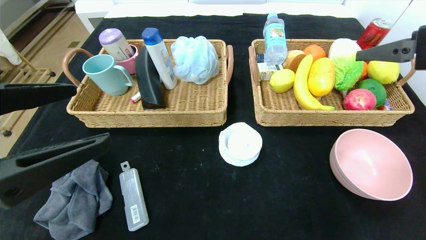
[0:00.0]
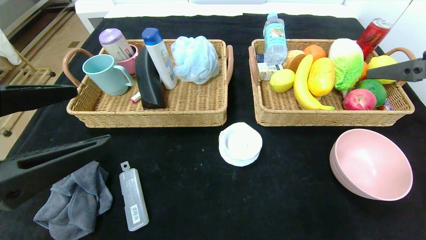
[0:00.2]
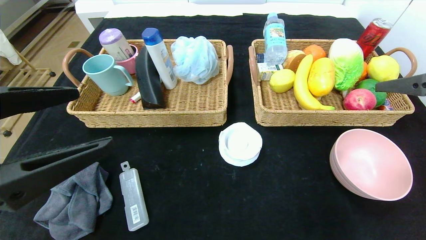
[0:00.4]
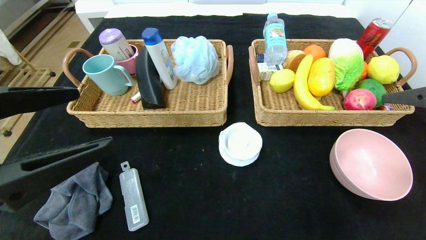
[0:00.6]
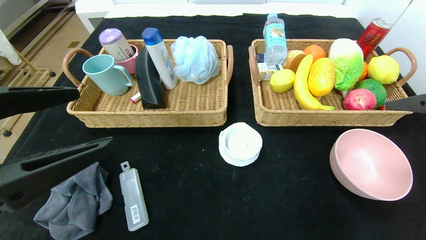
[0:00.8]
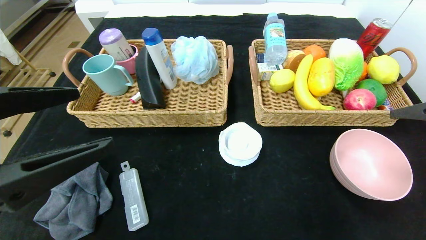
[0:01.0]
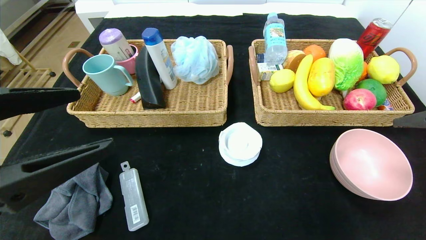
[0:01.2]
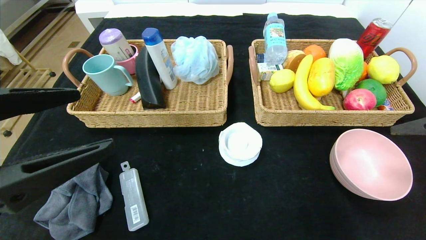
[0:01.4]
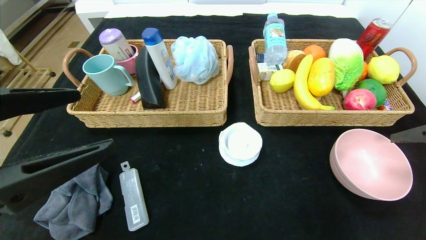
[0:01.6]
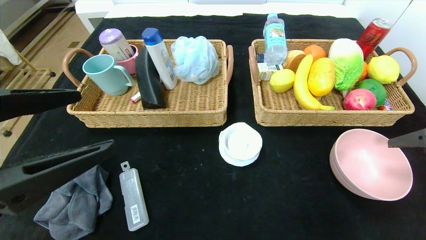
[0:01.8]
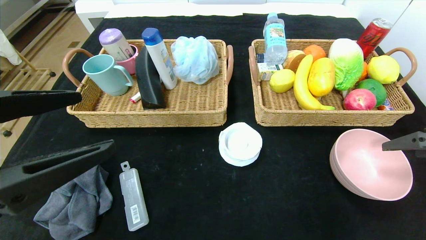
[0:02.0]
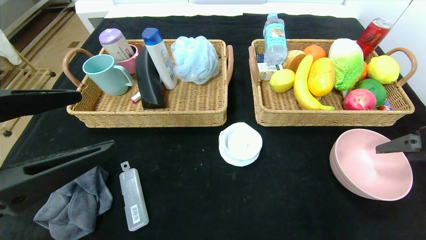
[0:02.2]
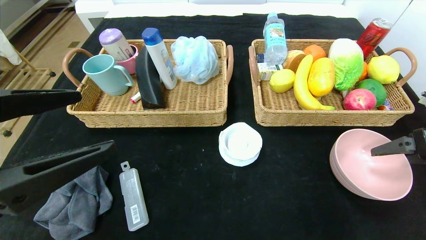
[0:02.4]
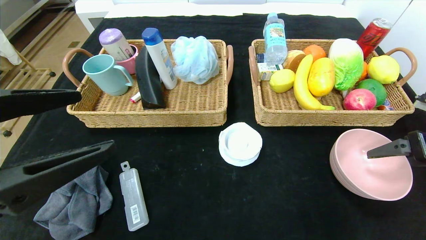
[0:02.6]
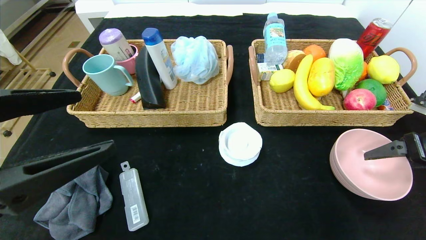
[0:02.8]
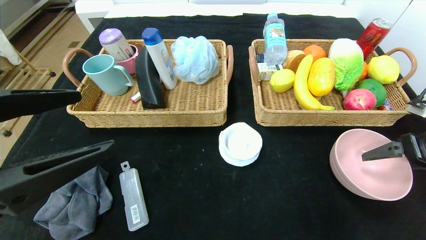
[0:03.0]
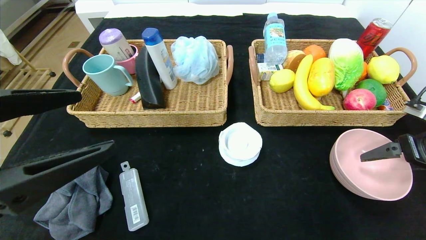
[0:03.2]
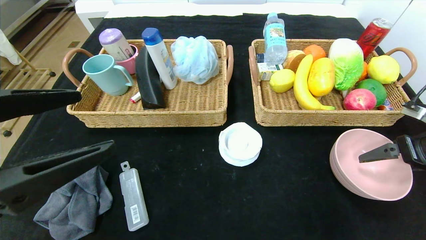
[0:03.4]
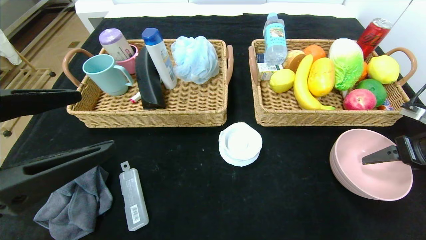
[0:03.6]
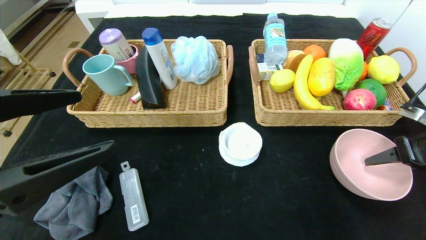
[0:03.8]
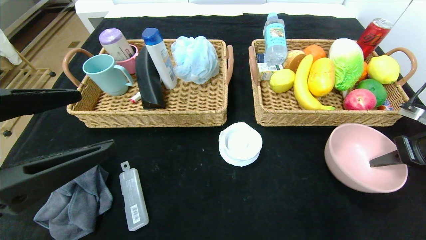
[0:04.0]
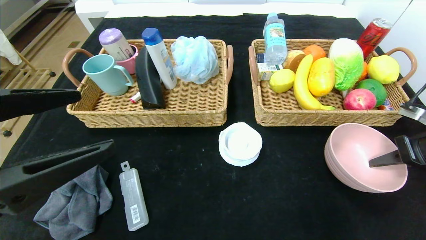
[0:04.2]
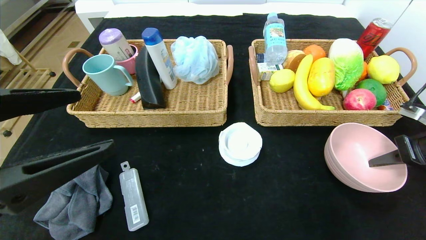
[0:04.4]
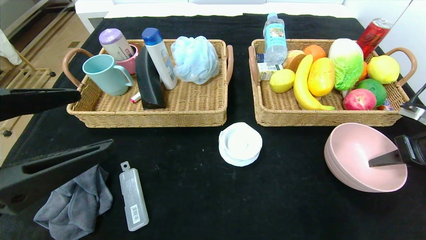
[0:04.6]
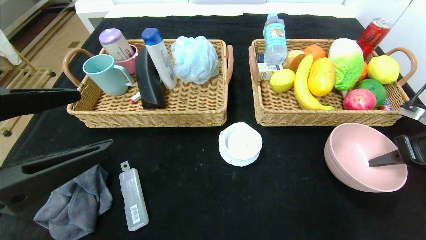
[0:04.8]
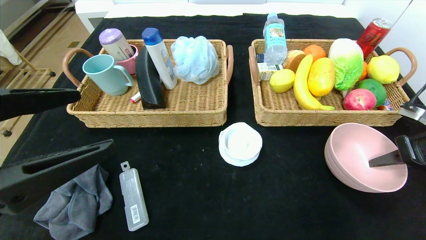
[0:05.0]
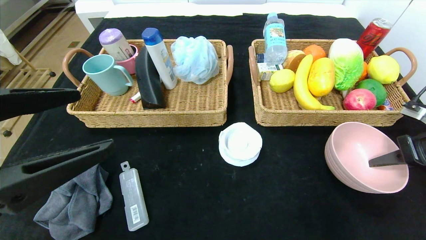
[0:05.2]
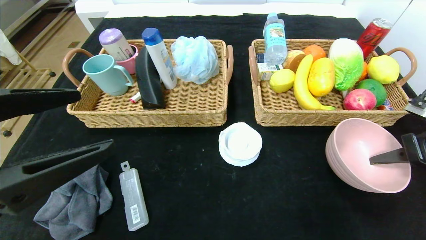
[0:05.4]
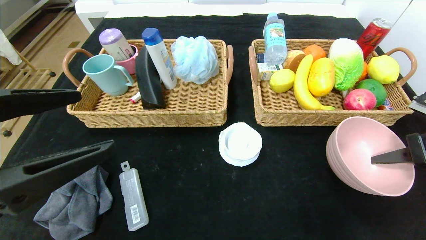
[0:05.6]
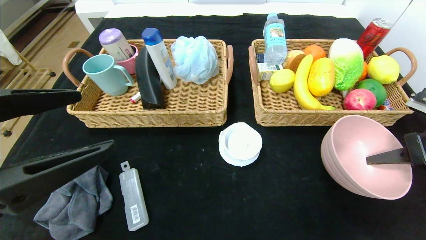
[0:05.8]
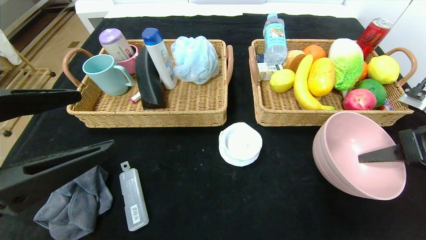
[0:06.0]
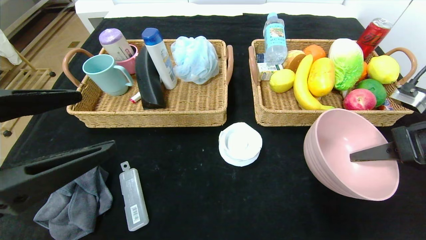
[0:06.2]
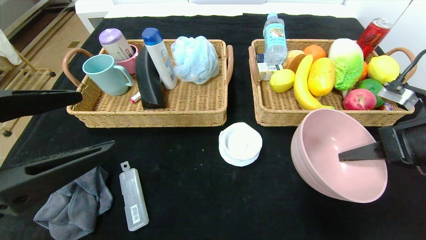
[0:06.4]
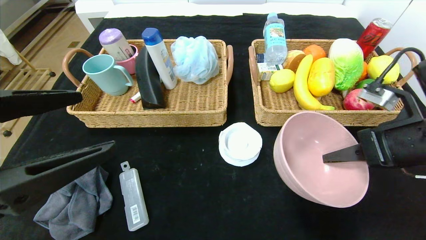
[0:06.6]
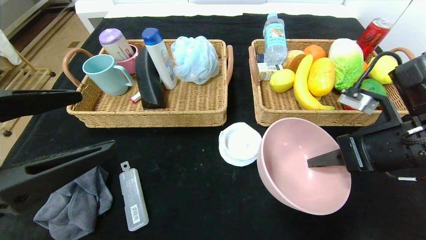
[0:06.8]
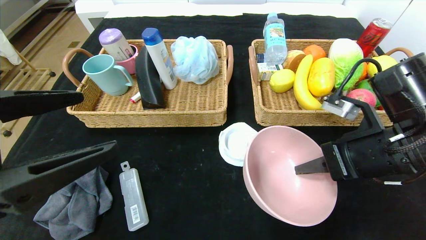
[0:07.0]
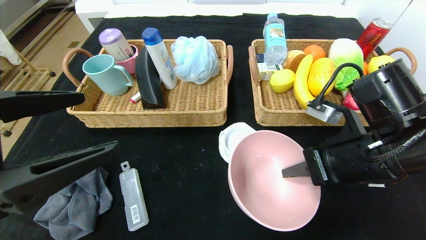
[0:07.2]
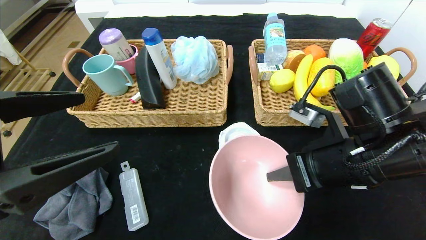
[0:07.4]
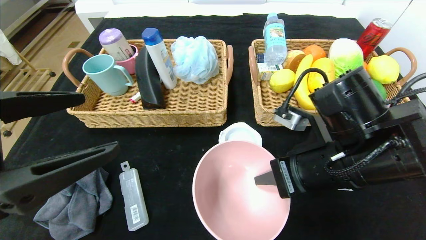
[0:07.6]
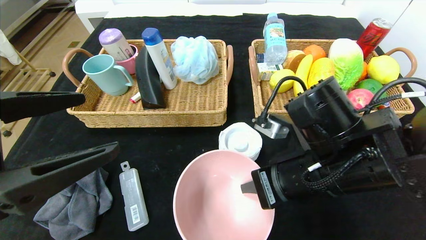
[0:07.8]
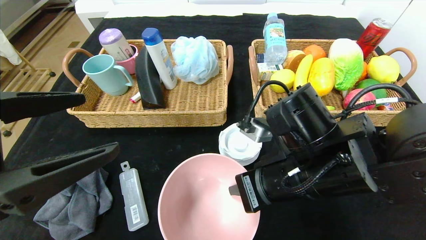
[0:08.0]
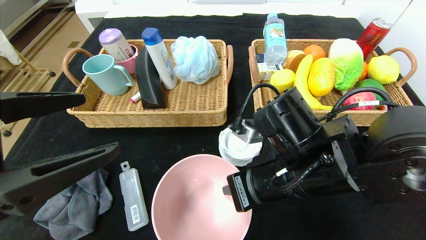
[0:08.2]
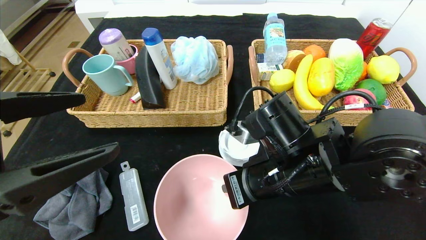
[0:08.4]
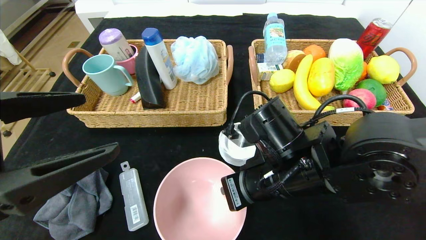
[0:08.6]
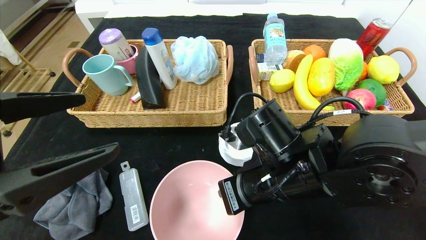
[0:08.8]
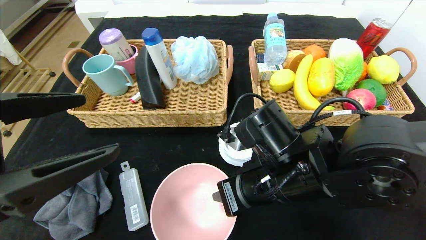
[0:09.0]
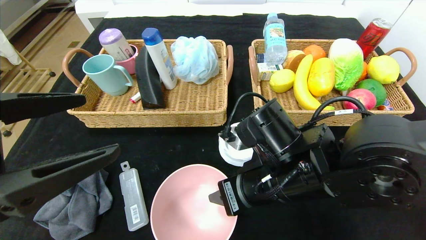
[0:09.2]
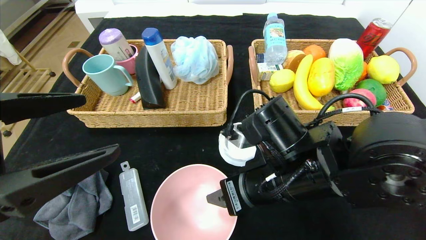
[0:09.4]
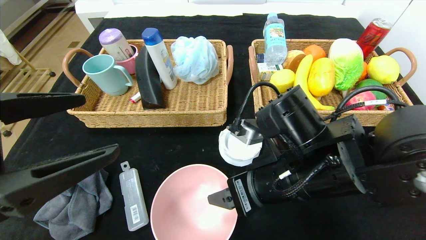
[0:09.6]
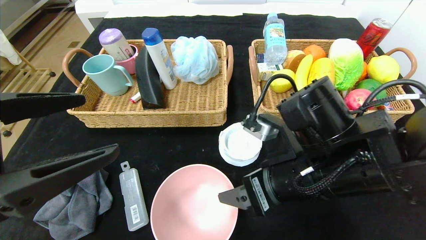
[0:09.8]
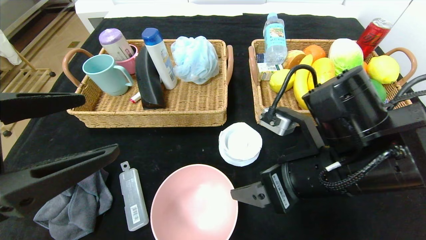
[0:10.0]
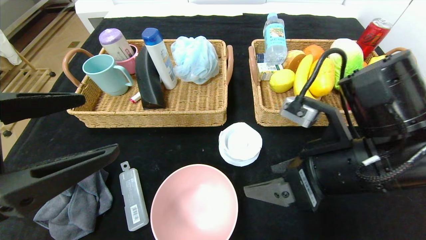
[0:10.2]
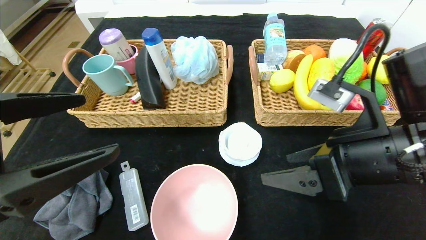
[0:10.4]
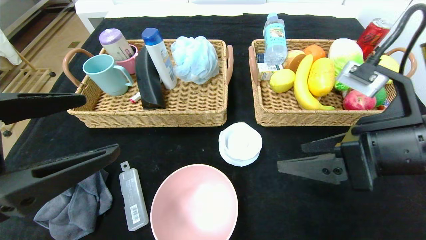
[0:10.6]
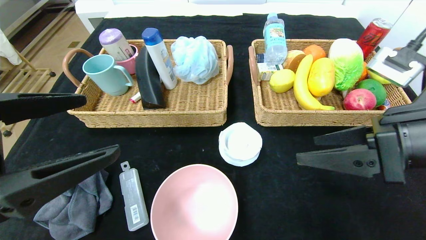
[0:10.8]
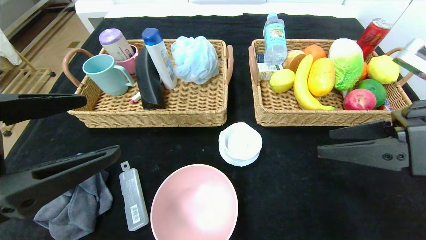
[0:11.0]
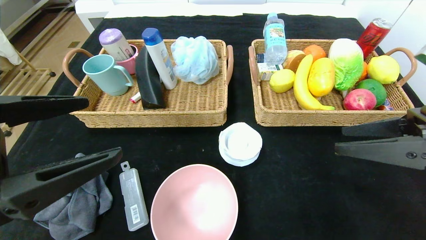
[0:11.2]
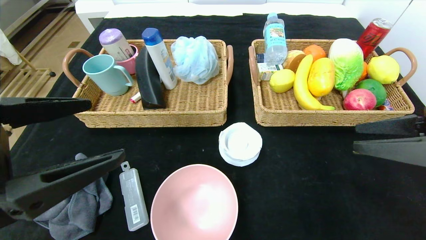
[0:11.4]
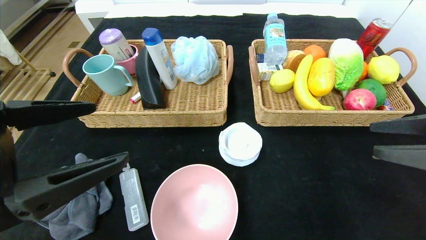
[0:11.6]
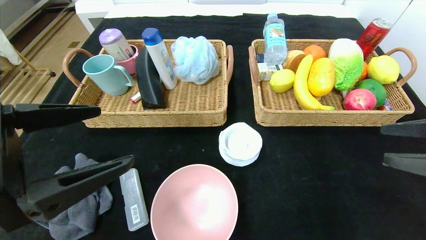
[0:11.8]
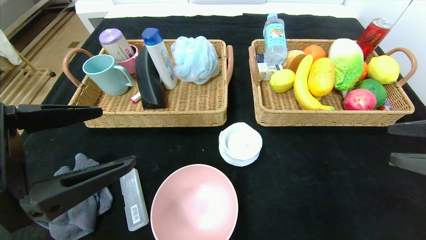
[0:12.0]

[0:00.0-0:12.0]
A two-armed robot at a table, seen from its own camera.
Step, 0:01.6 to 0:10.6: Place the pink bowl in the center of the table.
0:00.0 to 0:01.6: The right gripper moves downward and to the right, approximately 10 cm.
0:01.6 to 0:03.0: The right gripper heads downward and forward, covering roughly 10 cm.
0:03.0 to 0:04.4: The right gripper closes its fingers.
0:04.4 to 0:06.0: The right gripper changes place by approximately 5 cm.
0:06.0 to 0:07.6: The right gripper heads to the left, covering some 20 cm.
0:07.6 to 0:09.0: The right gripper goes approximately 5 cm to the left.
0:09.0 to 0:10.4: The right gripper heads to the right and upward, covering approximately 15 cm, and opens its fingers.
0:10.4 to 0:12.0: The right gripper shifts some 15 cm to the right.

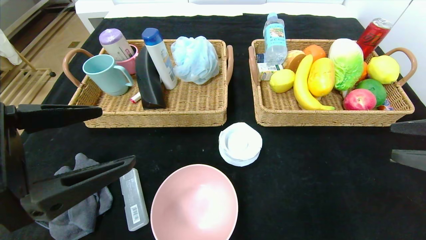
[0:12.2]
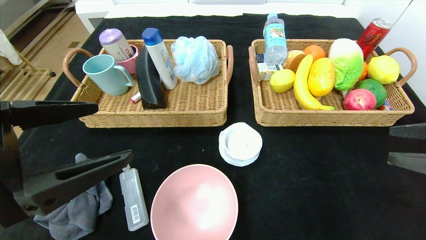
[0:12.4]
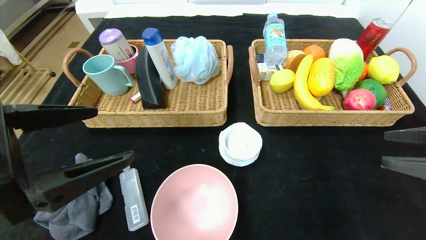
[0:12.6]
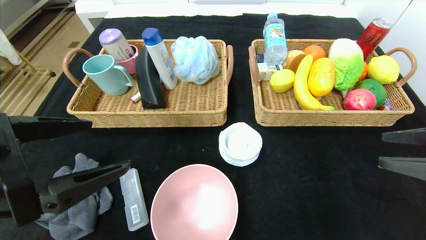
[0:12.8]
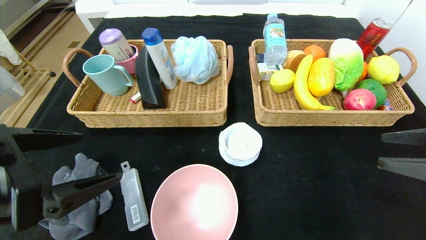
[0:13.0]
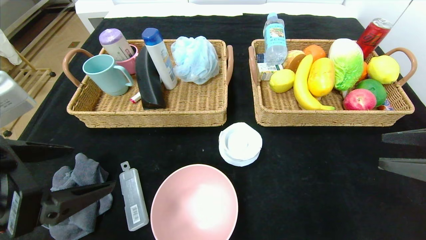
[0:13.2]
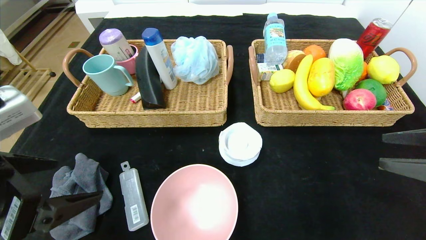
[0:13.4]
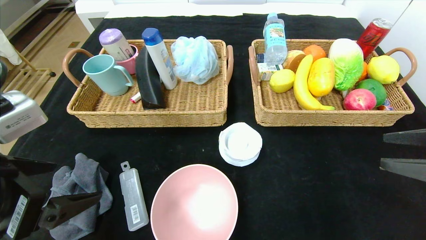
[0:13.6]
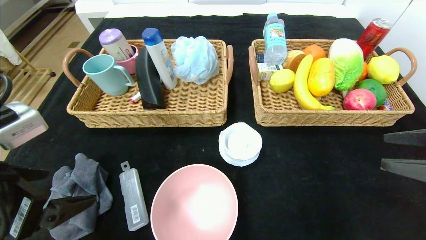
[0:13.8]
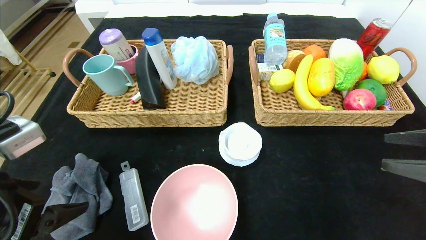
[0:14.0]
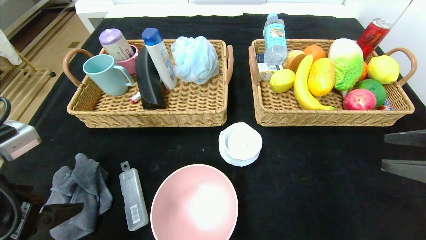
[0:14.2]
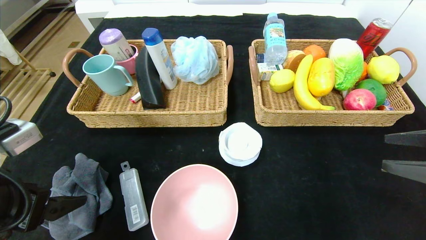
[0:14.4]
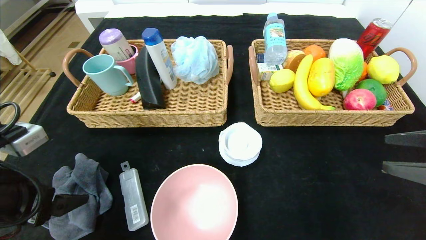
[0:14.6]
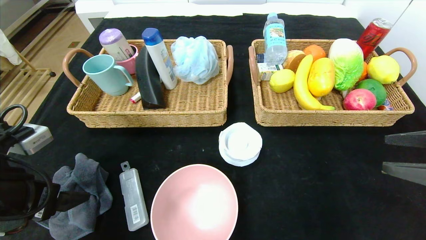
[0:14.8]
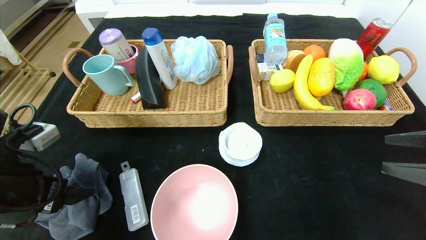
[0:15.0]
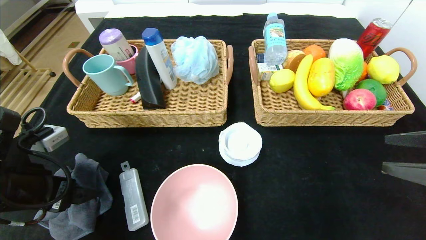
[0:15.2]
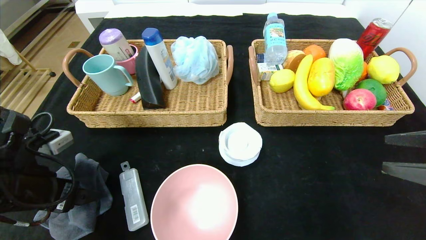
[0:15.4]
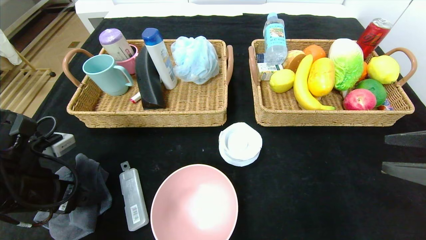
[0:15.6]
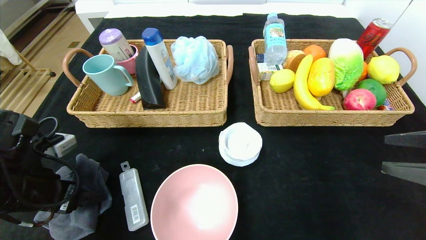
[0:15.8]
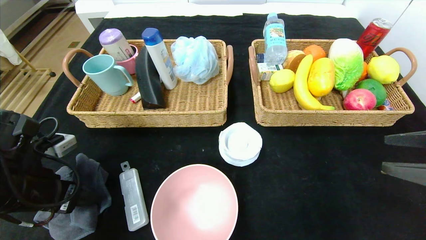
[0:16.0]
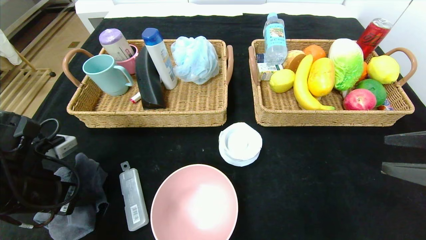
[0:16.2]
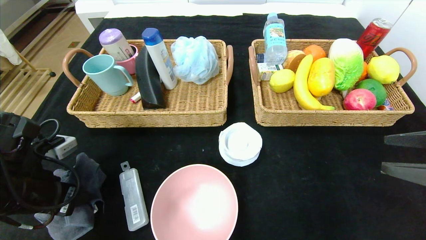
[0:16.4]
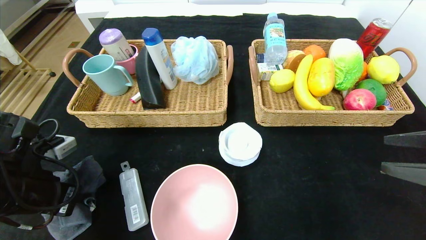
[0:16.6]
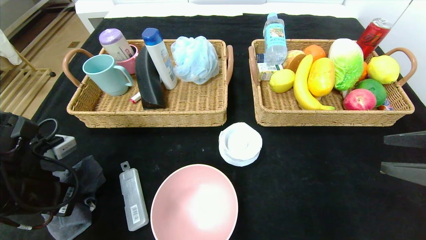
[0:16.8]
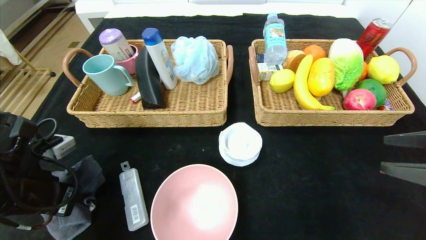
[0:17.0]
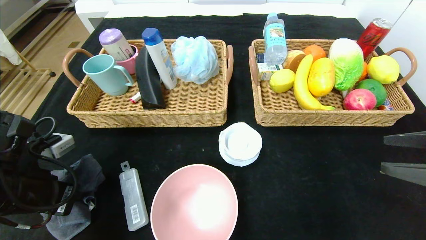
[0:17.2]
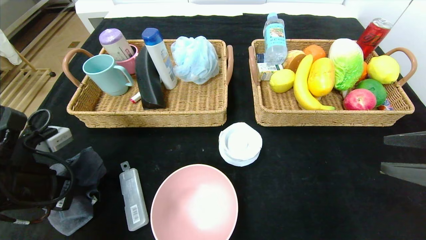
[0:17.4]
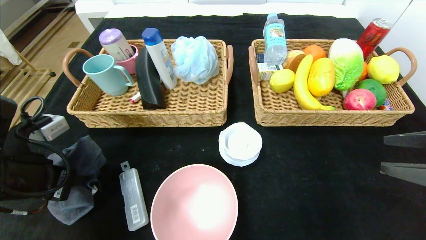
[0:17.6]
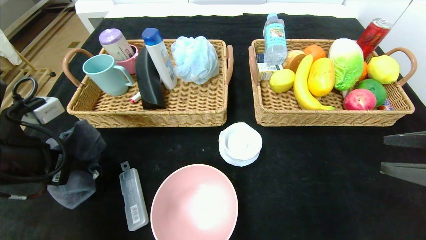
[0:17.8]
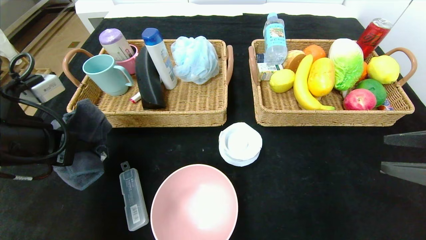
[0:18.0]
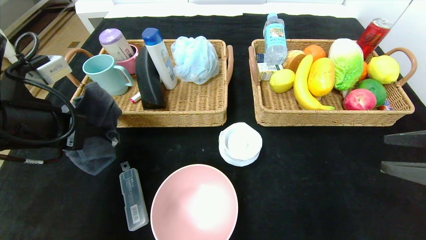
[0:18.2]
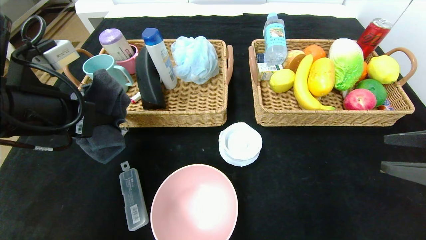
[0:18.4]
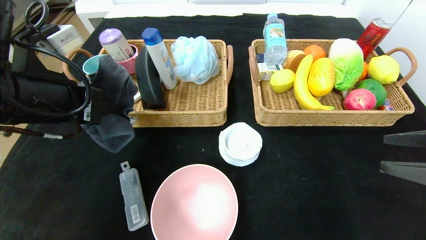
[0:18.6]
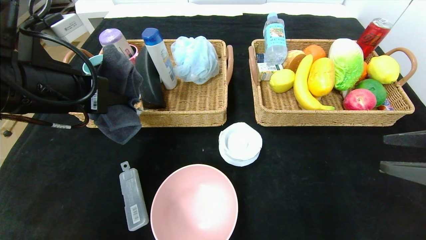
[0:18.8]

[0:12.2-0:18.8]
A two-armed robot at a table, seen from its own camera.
0:13.8 to 0:15.4: The left gripper moves forward and downward, approximately 10 cm.
0:15.4 to 0:17.2: The left gripper closes.
0:17.2 to 0:18.8: The left gripper shifts roughly 15 cm upward and to the right.
